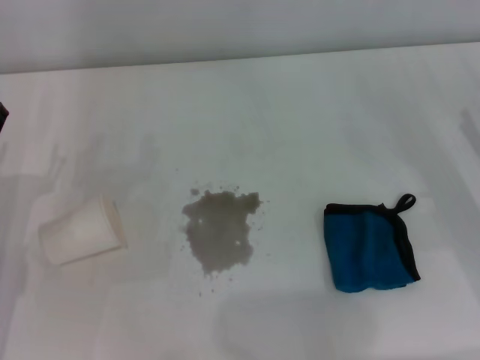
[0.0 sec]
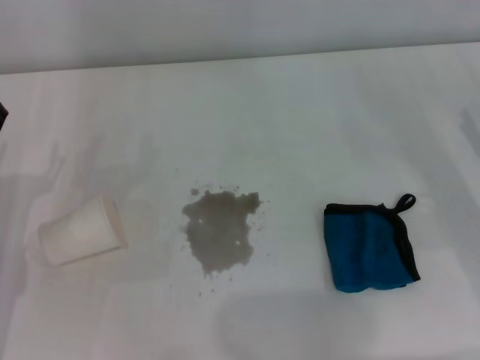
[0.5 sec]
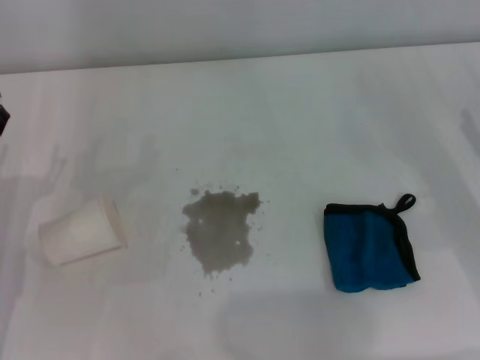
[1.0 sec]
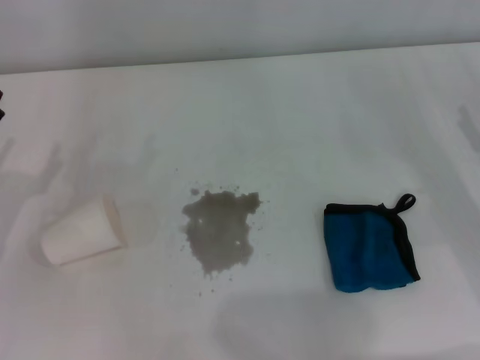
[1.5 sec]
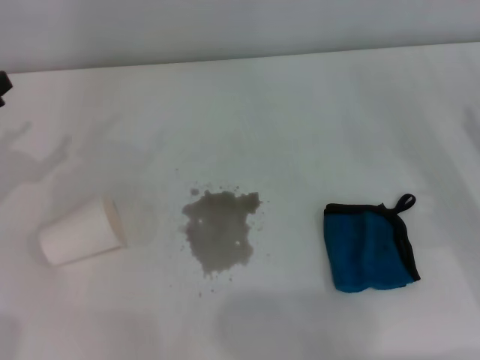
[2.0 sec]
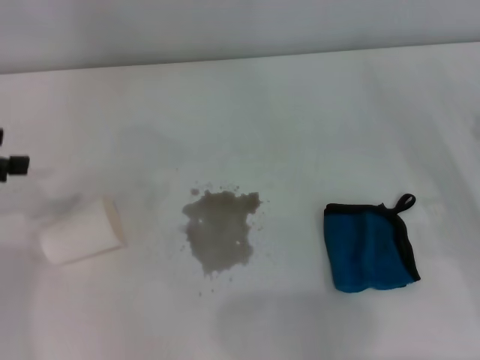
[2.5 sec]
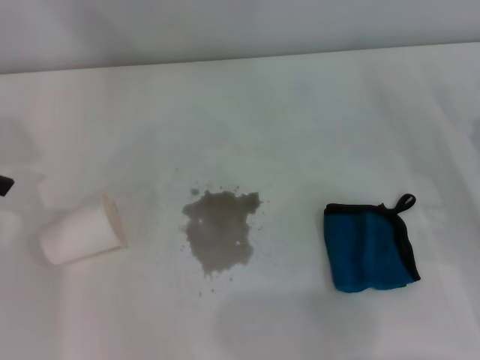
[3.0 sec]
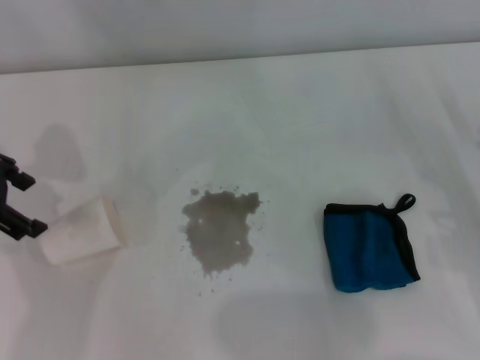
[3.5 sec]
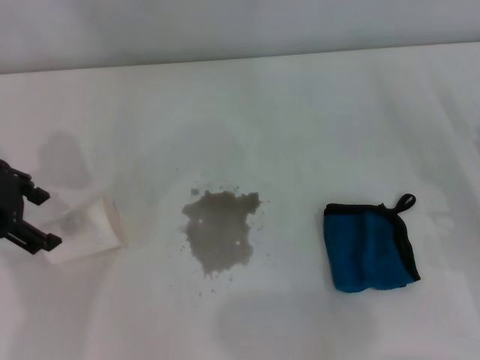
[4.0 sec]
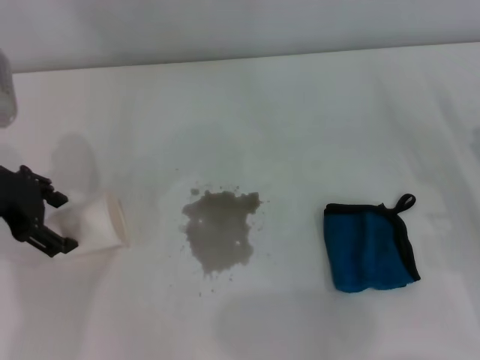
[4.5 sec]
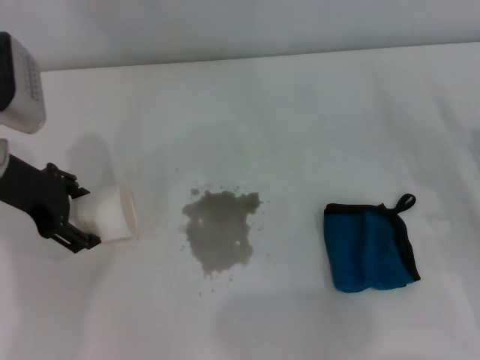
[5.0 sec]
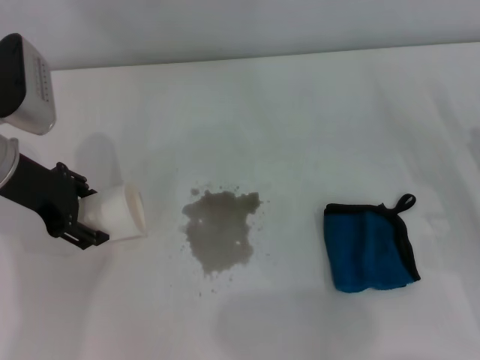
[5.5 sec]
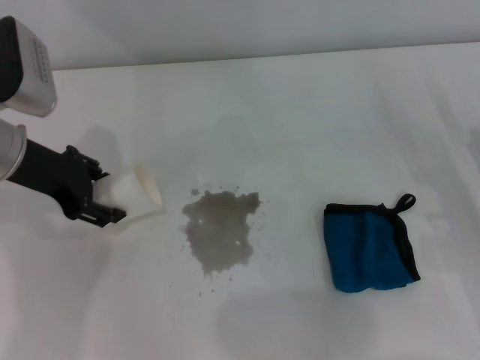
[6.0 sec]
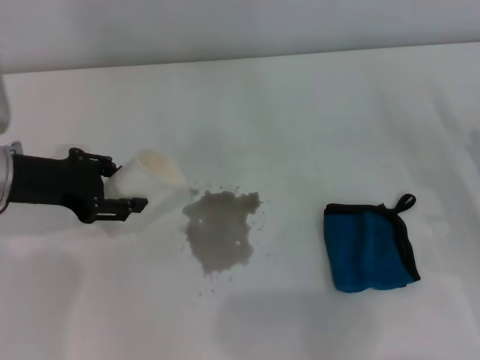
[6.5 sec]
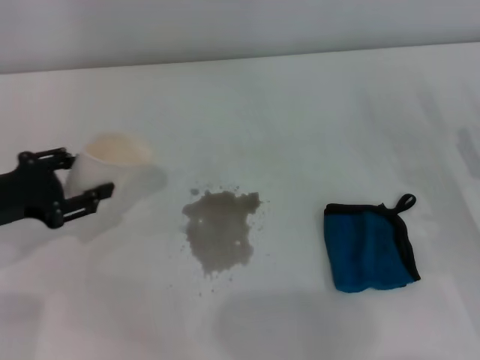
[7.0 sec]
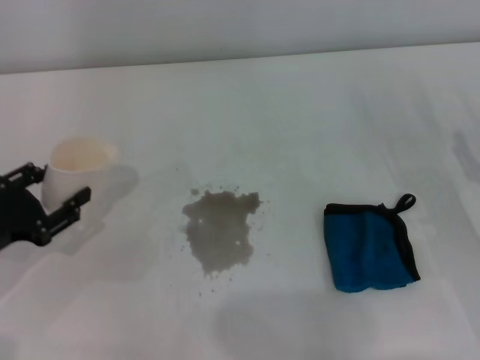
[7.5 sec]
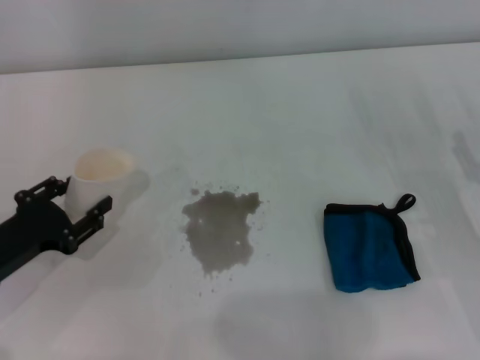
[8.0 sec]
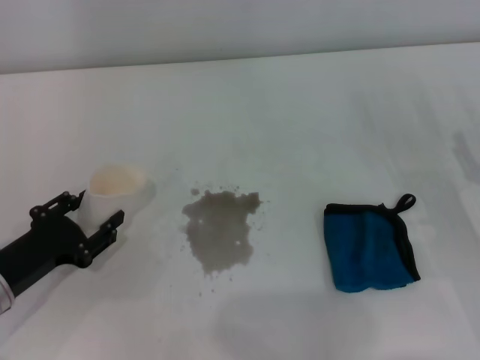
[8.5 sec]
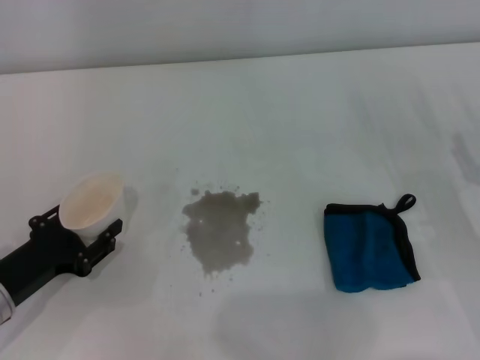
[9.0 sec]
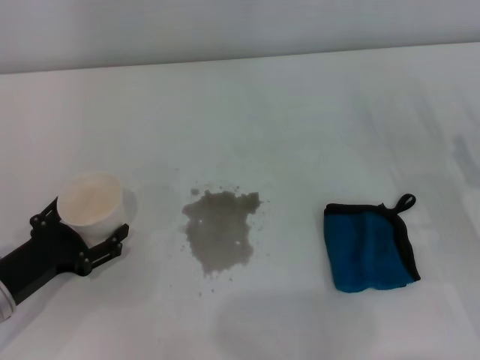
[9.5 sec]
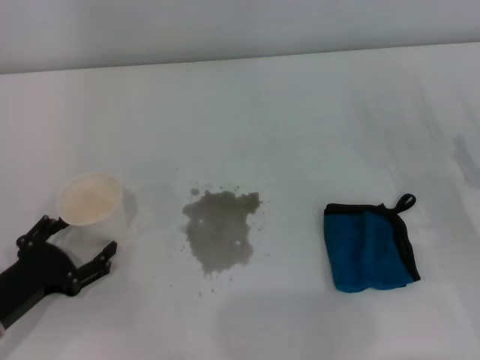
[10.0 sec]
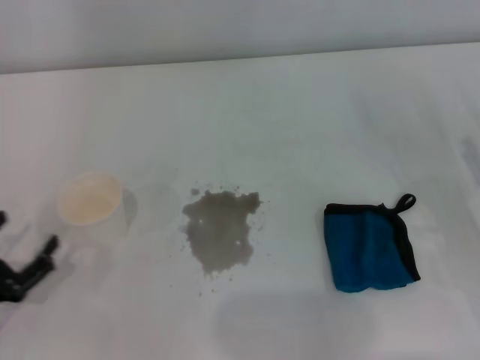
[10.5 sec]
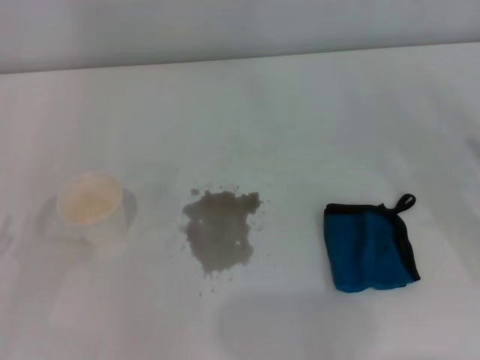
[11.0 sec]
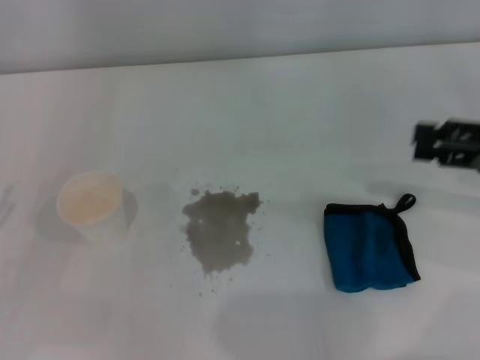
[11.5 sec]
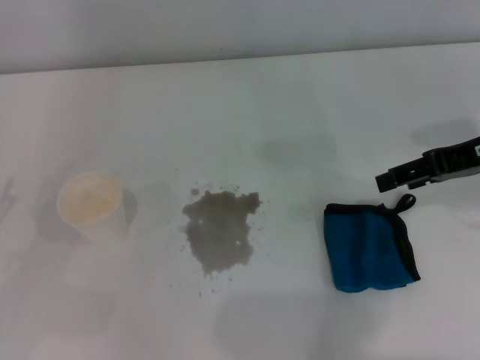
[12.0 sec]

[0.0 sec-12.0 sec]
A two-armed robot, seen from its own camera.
Step, 0.0 sec to 5.5 sec: Grasp the paper cup with the left gripper.
Step, 6.0 sec to 9.5 sec: Stand the paper cup upright with the left gripper.
2.0 sec to 4.0 sec: The left gripper shifts approximately 10 cm to the right, upward and forward.
4.0 sec to 6.0 sec: The left gripper moves roughly 5 cm, and closes its fingers.
6.0 sec to 8.0 sec: The left gripper is displaced backward, downward and to the left by some 20 cm.
8.0 sec to 10.0 sec: The left gripper shifts by roughly 5 cm, and opens its fingers.
10.0 sec to 12.0 sec: The left gripper shifts about 10 cm to the left and upward. The right gripper goes approximately 20 cm upward and forward.

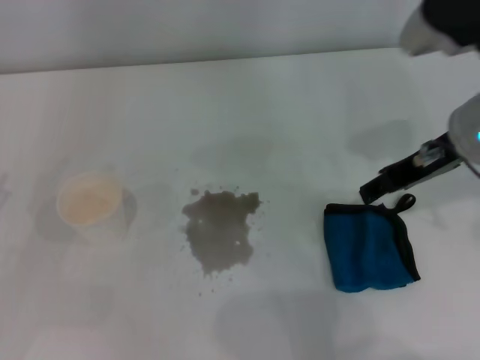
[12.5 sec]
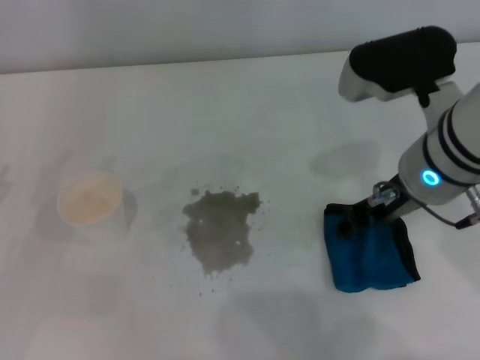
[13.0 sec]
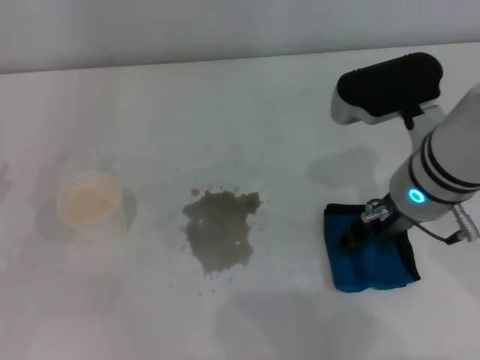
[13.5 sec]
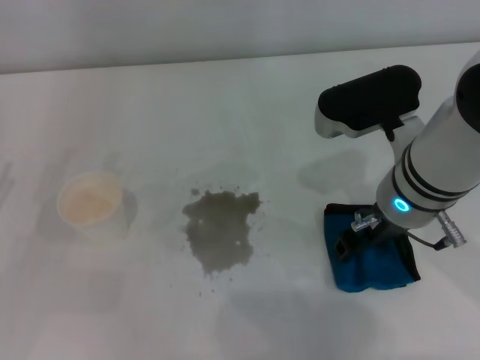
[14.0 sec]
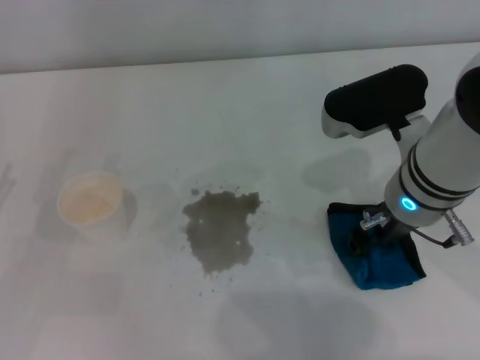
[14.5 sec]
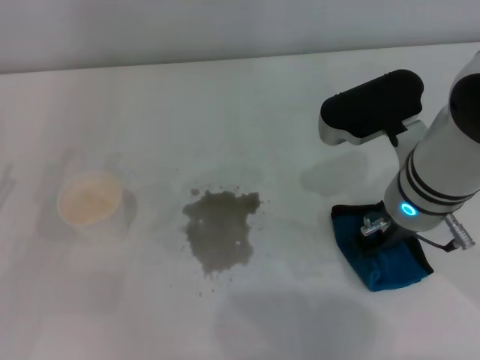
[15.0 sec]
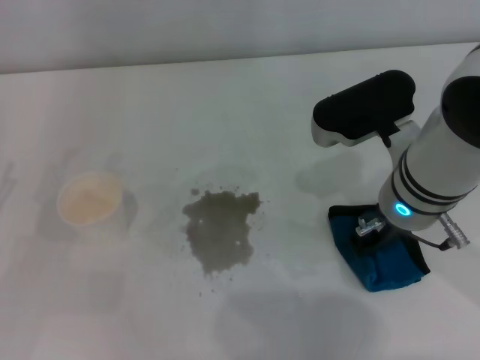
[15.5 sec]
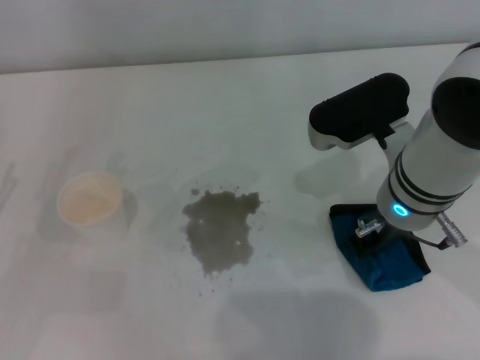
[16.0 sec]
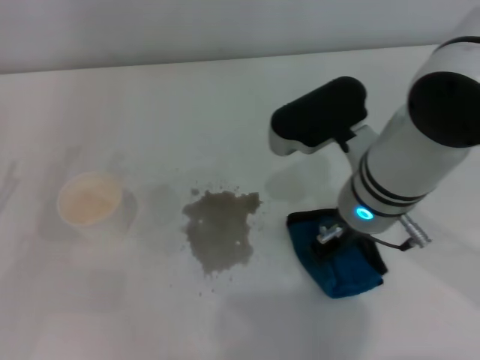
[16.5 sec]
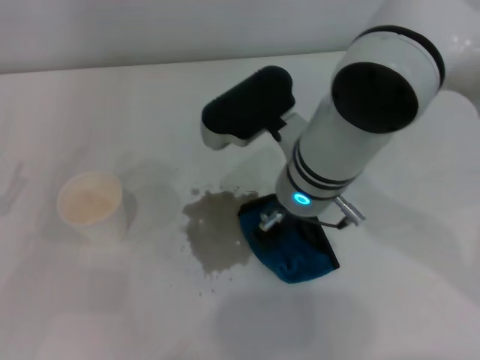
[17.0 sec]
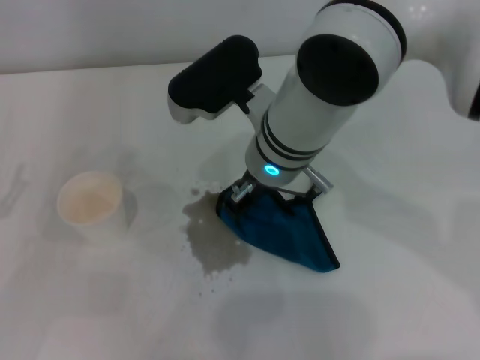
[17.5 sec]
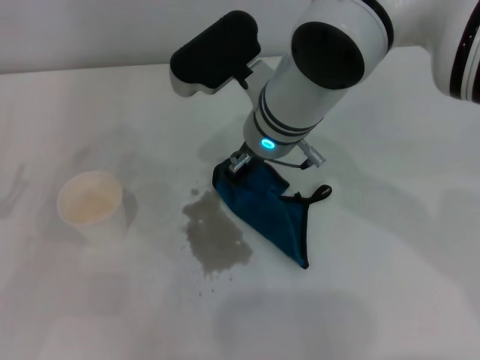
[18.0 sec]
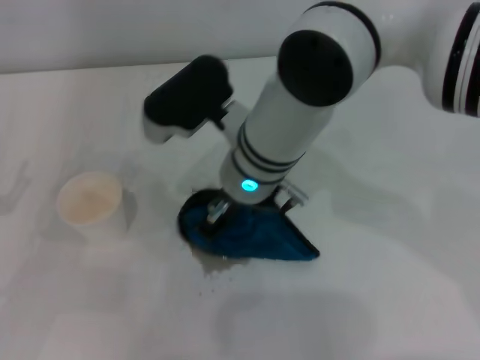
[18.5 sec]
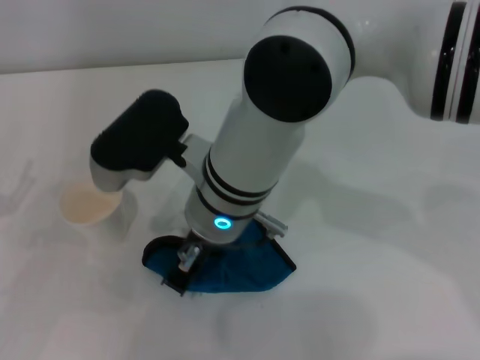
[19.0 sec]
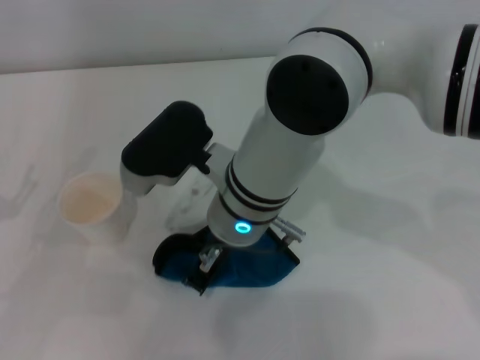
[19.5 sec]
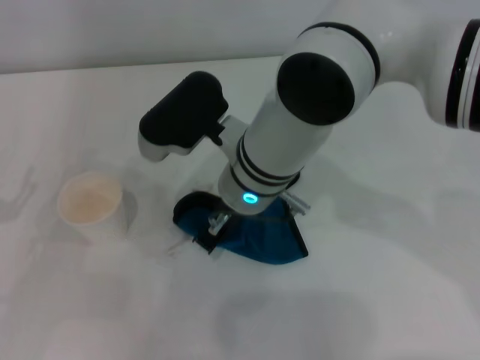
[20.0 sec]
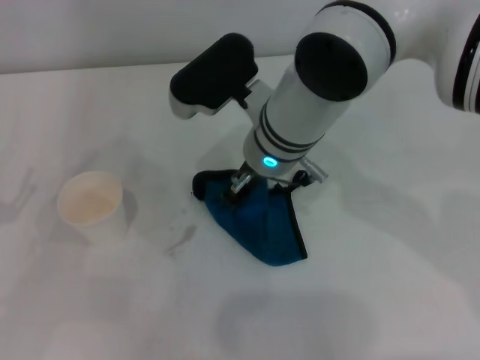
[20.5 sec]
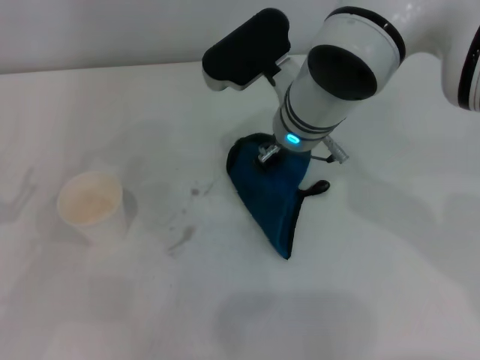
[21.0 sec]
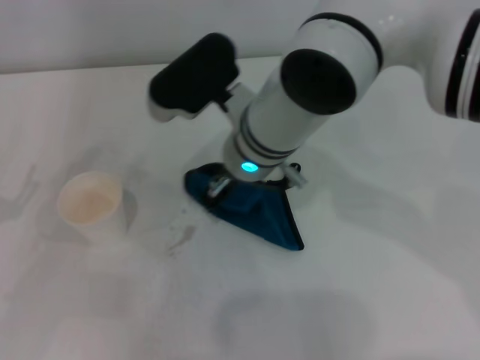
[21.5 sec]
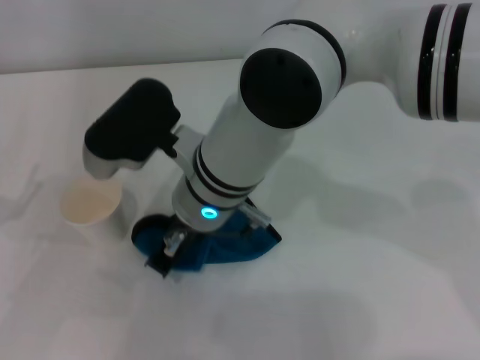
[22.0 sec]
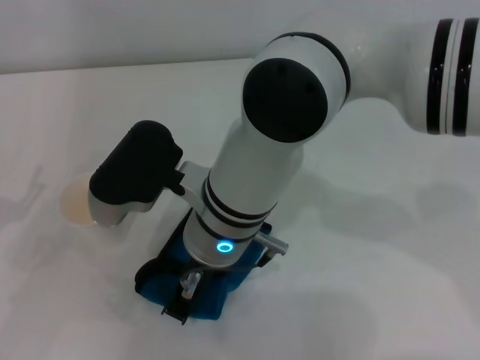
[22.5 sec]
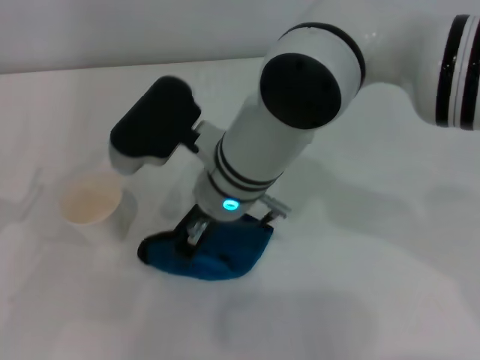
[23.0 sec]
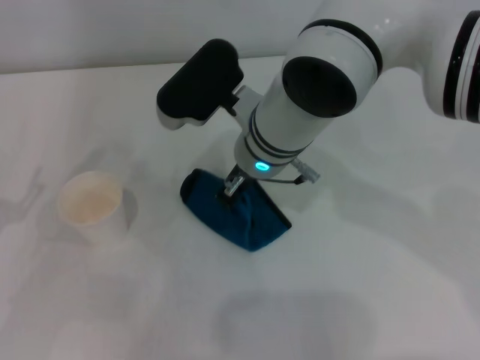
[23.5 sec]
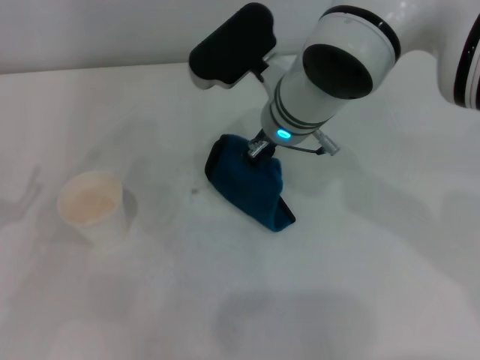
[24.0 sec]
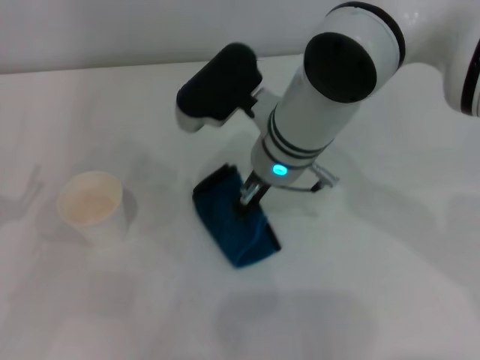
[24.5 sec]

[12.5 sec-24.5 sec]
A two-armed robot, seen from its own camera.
Step, 12.5 sec to 16.0 sec: Grasp the rag with the right gripper.
12.5 sec to 14.5 sec: The right gripper heads to the left and downward, covering approximately 10 cm.
14.5 sec to 16.5 sec: The right gripper closes its fingers.
16.5 sec to 18.5 sec: The right gripper moves to the left, roughly 10 cm.
18.5 sec to 20.5 sec: The grippers stay close to where they were, moving slightly.
20.5 sec to 22.5 sec: The right gripper travels backward and to the left by roughly 10 cm.
22.5 sec to 24.5 sec: The right gripper moves to the right and forward, approximately 10 cm.

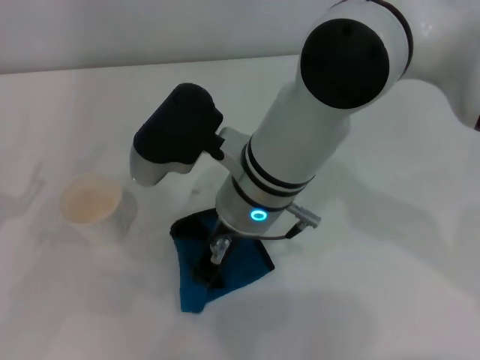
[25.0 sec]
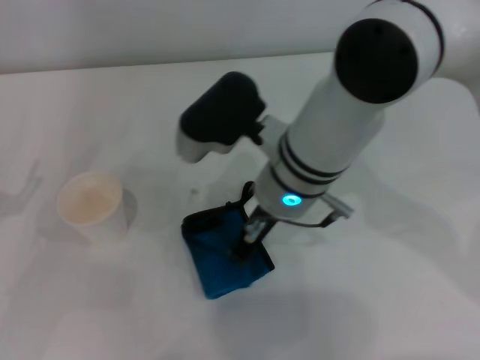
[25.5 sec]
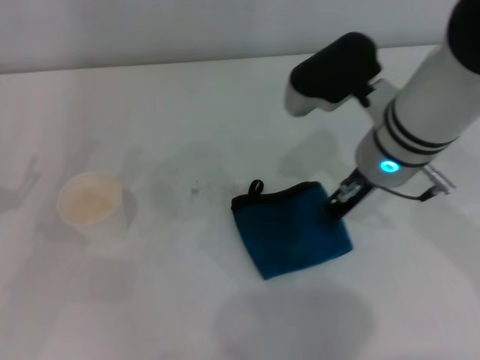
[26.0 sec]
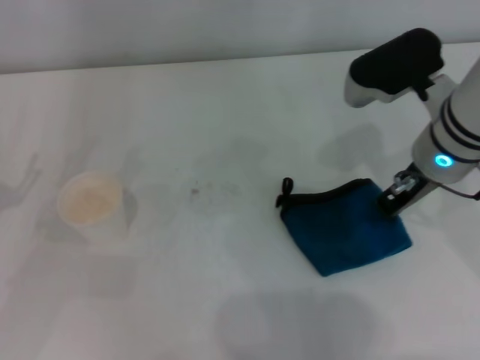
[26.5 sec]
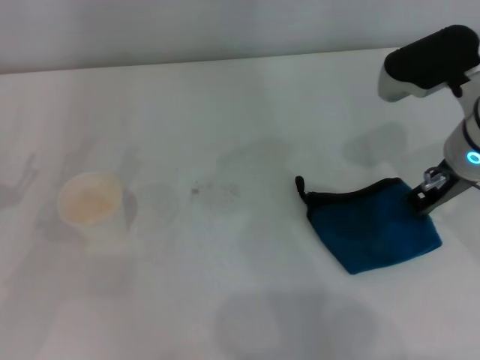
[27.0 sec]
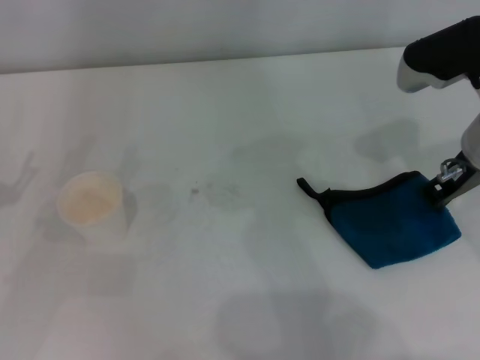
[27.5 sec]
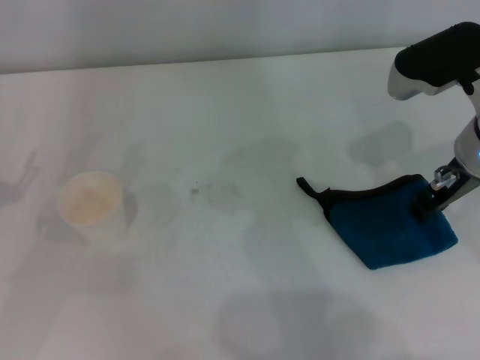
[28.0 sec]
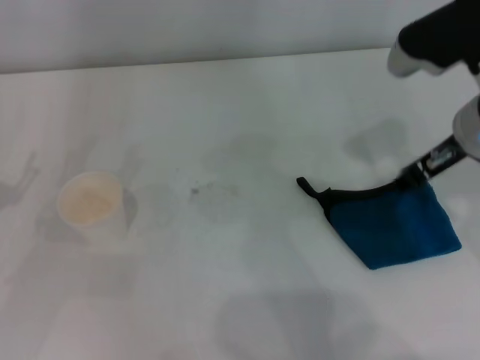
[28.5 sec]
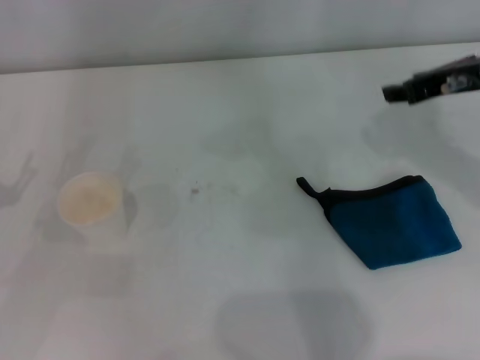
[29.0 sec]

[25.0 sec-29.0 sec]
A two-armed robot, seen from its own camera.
Step, 25.0 sec to 27.5 sec: Wipe the stains off the table with the right gripper.
25.0 sec to 27.0 sec: The right gripper shifts about 20 cm to the right.
27.0 sec to 29.0 sec: The right gripper ends up approximately 5 cm from where it was, and opens its fingers.
